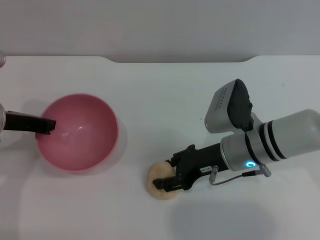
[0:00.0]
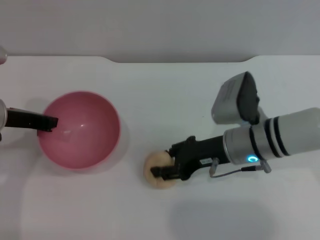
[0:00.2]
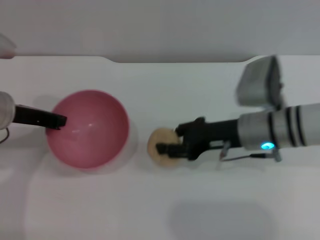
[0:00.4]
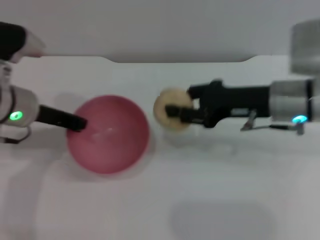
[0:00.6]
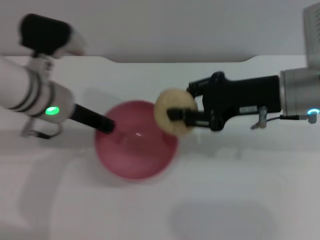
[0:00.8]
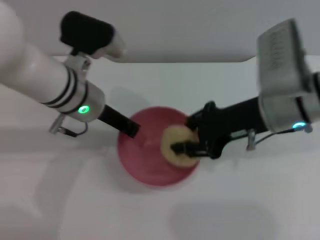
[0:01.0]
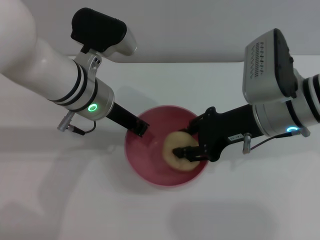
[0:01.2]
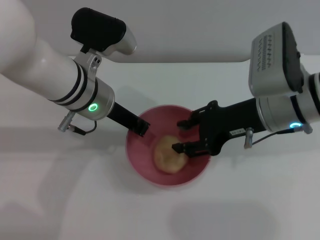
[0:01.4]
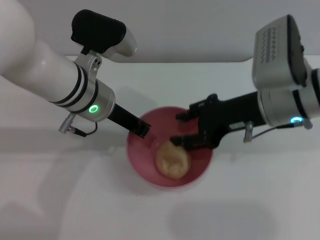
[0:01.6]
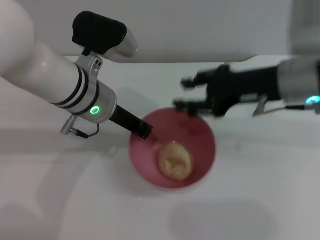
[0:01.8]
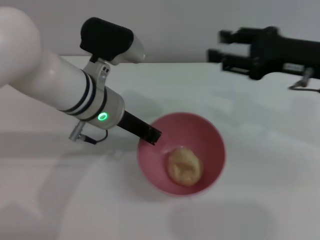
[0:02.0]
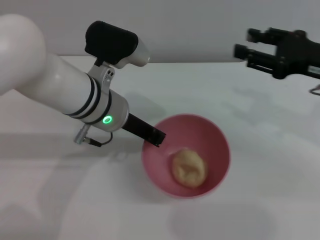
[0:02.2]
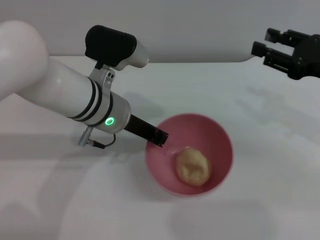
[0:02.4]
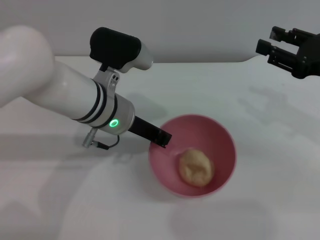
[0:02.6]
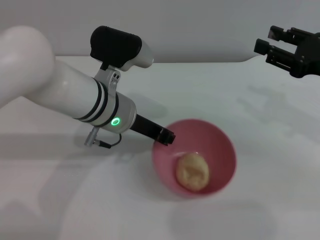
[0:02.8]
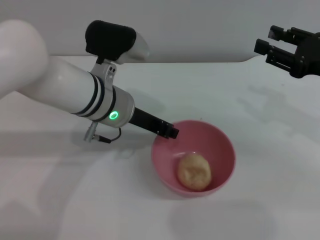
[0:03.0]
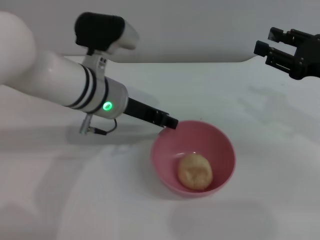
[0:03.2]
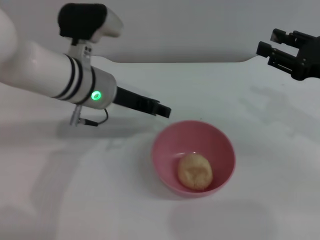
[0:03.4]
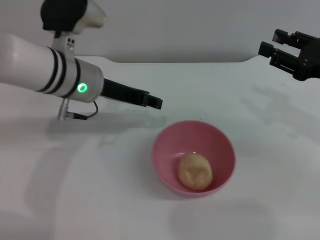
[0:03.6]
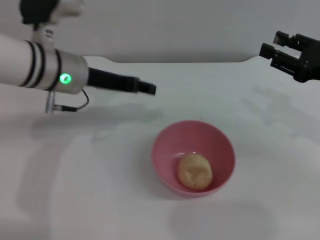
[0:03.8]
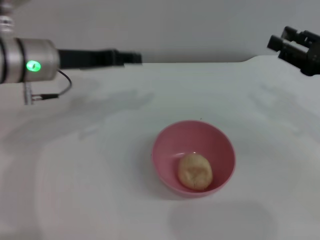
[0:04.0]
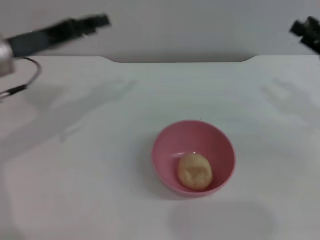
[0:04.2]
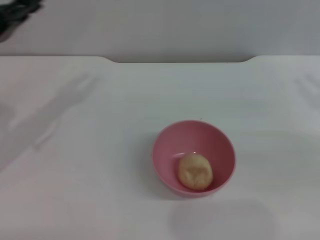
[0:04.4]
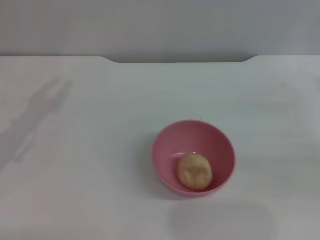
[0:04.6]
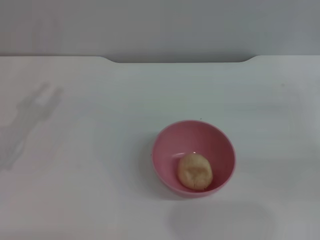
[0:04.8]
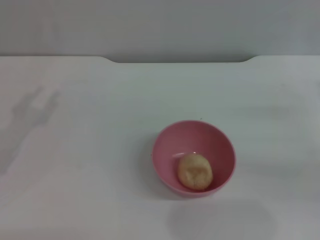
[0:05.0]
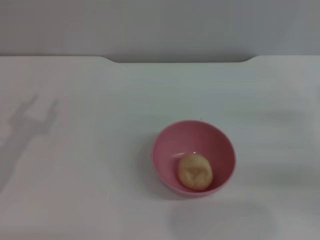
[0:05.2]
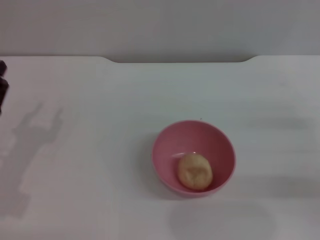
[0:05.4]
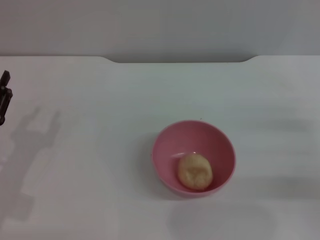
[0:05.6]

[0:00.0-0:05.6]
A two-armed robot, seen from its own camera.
Task of the whole recording: put the egg yolk pastry into the pink bowl and pour it out repeatedly.
Step, 0:00.6 to 0:01.4: Place the egg yolk pastry into the bowl.
Step, 0:01.6 to 0:03.2: Place the bowl on the table.
0:00.0 to 0:01.4: The right gripper travels upward by roughly 10 cm, and closes its fingers. The left gripper shifts about 15 cm to the right.
0:01.4 to 0:02.8: The right gripper is displaced to the right by some 15 cm.
0:02.8 to 0:04.2: The left gripper heads to the left, covering roughly 15 cm, and opens.
0:04.2 to 0:05.6: The left gripper shifts some 20 cm backward and downward. The right gripper travels downward and backward by about 10 cm.

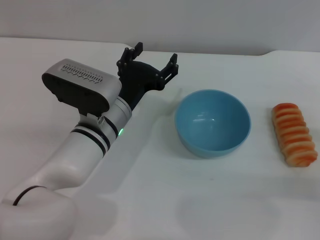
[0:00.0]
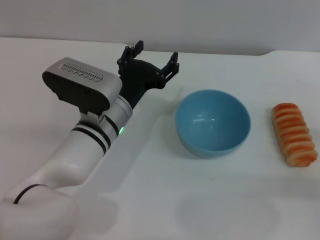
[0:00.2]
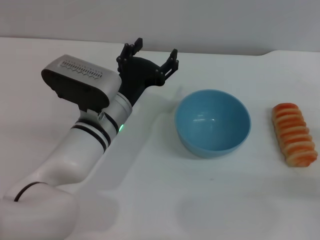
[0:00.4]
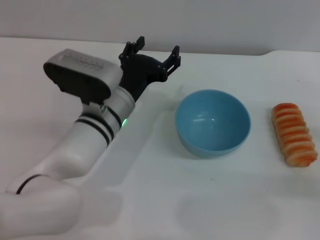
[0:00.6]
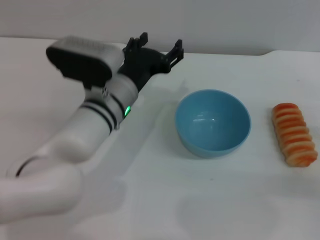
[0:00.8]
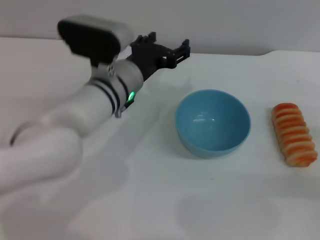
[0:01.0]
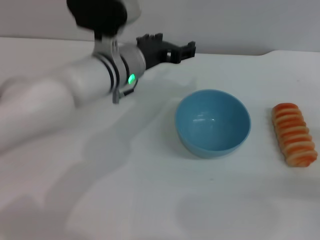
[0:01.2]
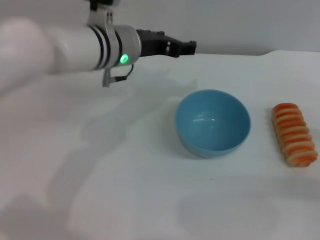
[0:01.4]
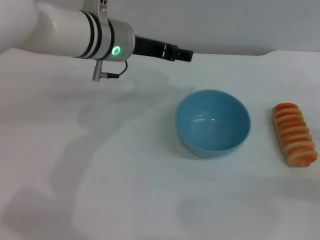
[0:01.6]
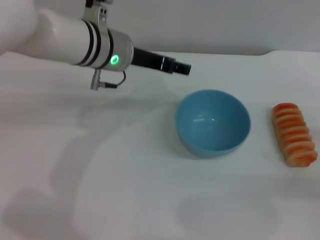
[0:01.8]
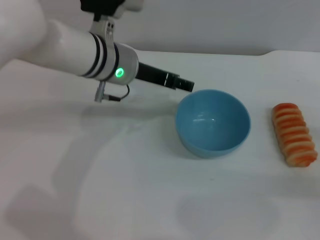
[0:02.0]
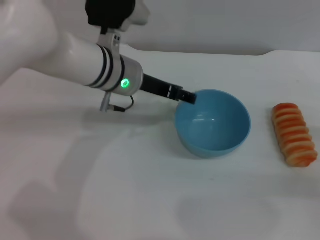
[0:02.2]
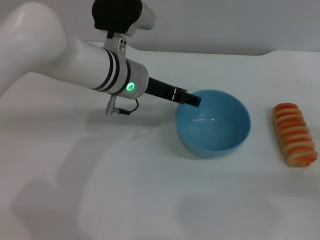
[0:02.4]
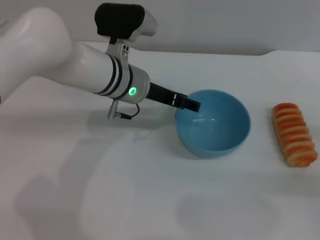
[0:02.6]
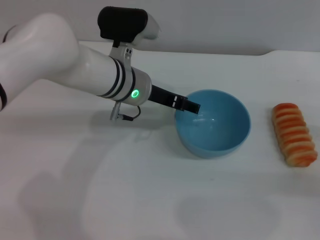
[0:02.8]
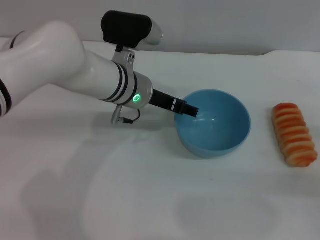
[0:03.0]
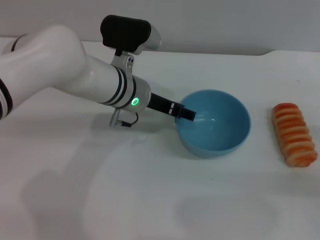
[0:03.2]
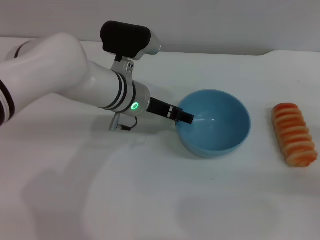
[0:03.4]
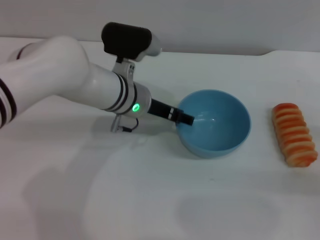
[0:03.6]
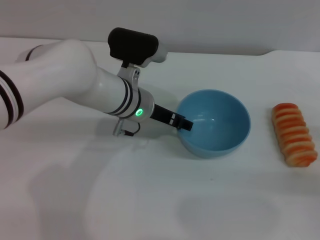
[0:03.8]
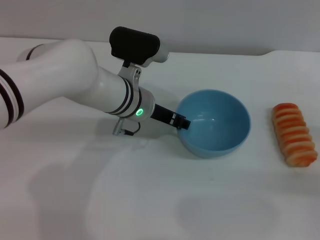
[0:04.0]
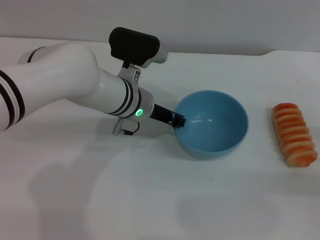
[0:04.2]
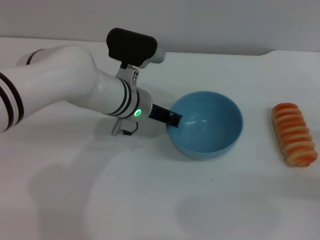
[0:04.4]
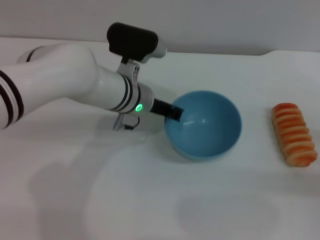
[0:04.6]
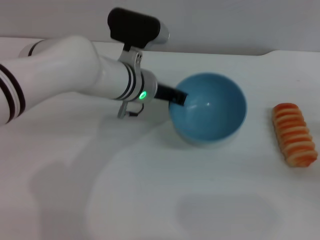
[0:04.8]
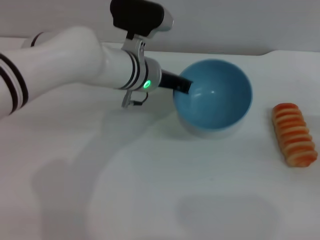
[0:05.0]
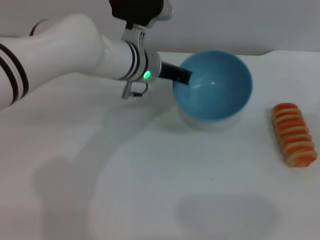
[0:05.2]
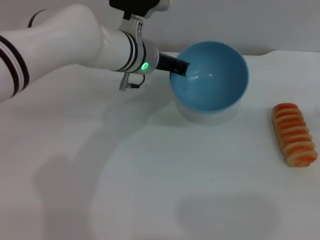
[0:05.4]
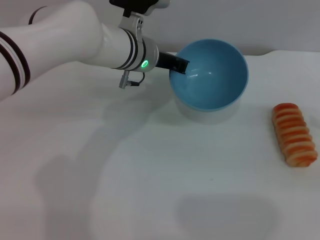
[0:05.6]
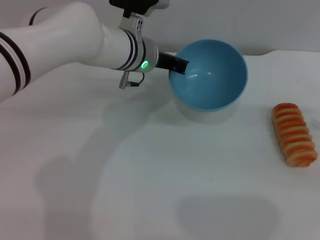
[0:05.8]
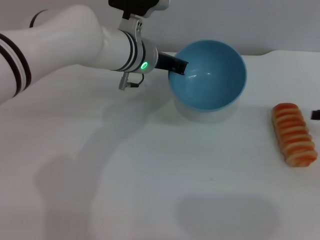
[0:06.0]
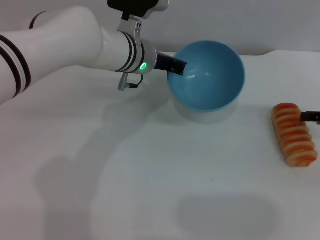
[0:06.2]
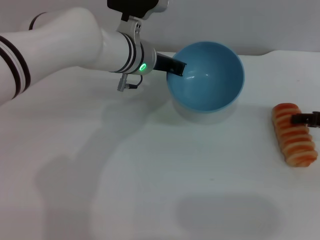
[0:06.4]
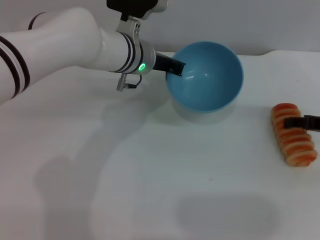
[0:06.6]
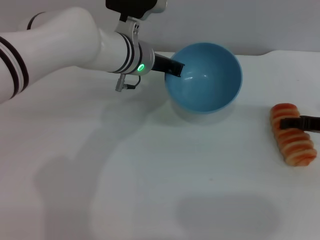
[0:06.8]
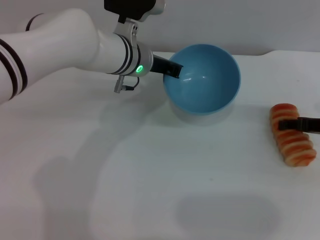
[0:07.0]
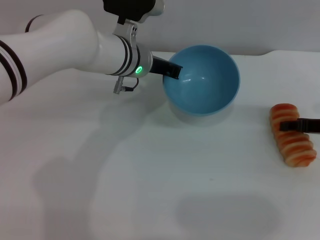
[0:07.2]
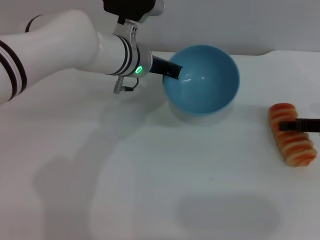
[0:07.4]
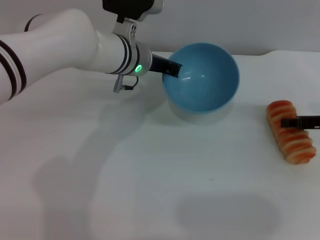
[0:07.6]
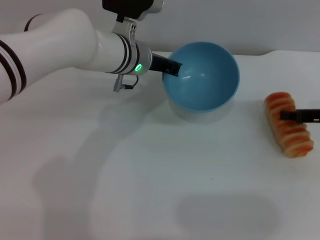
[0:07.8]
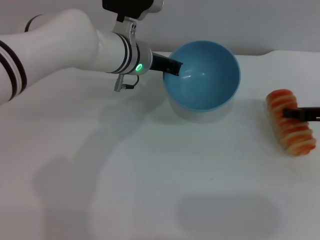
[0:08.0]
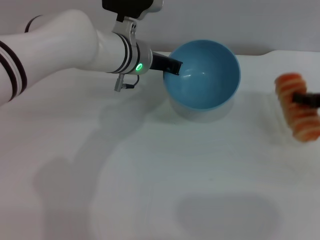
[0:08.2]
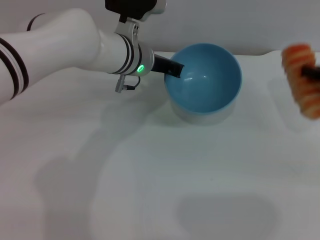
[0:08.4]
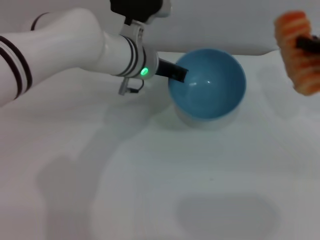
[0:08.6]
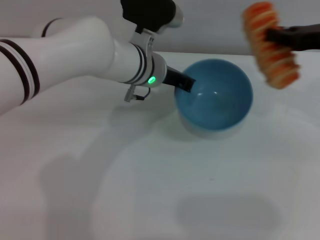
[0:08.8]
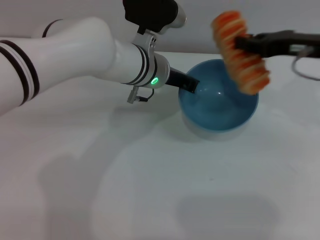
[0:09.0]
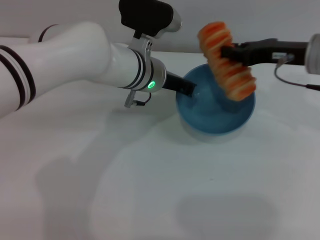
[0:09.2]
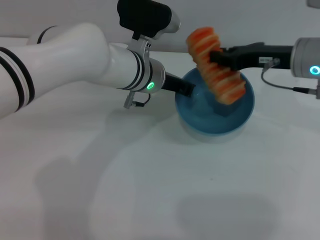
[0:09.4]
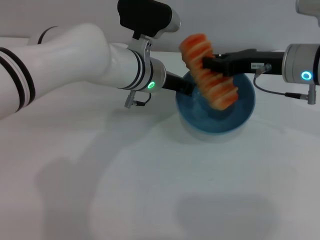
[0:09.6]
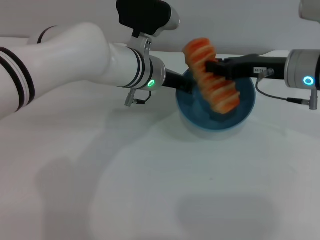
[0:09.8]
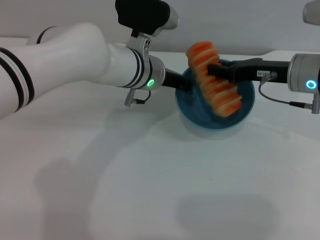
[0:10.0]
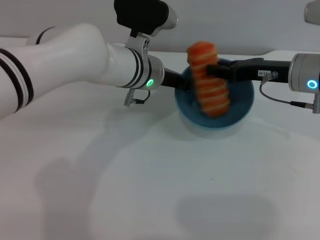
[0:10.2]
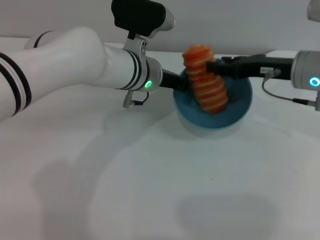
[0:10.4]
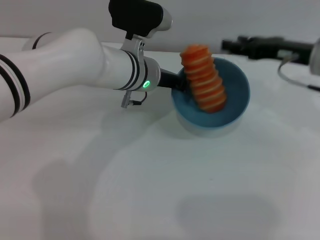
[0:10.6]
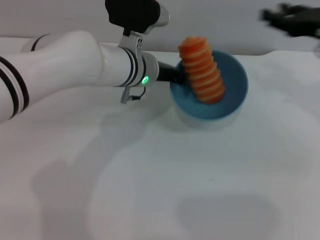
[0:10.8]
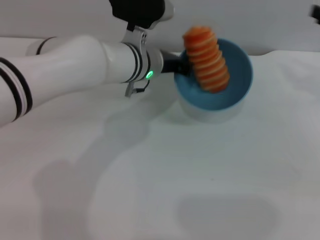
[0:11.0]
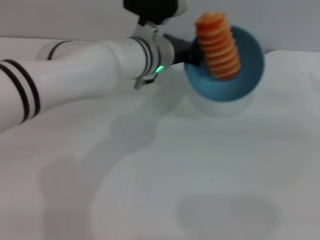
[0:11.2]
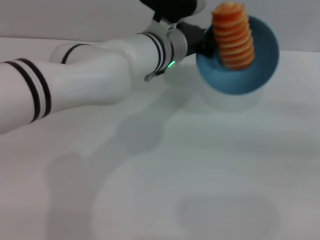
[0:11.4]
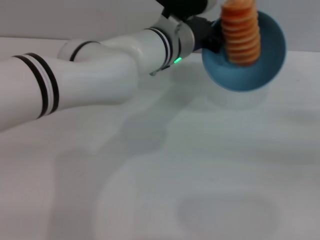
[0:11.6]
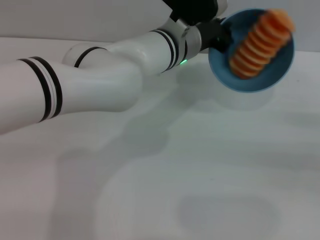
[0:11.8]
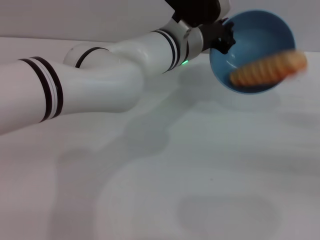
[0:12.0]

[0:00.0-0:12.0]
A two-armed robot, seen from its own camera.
Task of the whole recording: put the bread into the blue bowl and pour it out repeatedly.
Step, 0:00.0 to 0:05.6: Pick up the bowl with the left gripper.
Step, 0:05.8 to 0:08.4: Pick up the bread with the right gripper.
Step, 0:08.6 to 0:10.6: Place the bread into the bowl.
0:00.0 to 0:01.6: The left gripper goes roughly 15 cm upward and forward.
0:01.6 to 0:03.0: The left gripper goes roughly 5 cm downward.
0:03.0 to 0:04.4: The left gripper closes its fingers.
0:04.4 to 0:06.0: The right gripper heads forward and upward, covering roughly 10 cm. The left gripper ends up about 5 cm from where it was, and closes.
0:06.0 to 0:07.6: The right gripper shifts by approximately 5 cm.
0:07.6 to 0:09.0: The right gripper moves upward and to the left, about 10 cm, and closes.
0:09.0 to 0:10.4: The right gripper changes place by approximately 5 cm, and opens its fingers.
0:10.4 to 0:12.0: The left gripper heads to the right, covering about 5 cm. The right gripper goes approximately 20 cm to the right and backward, and opens.

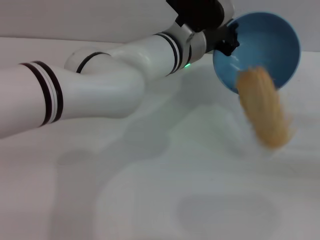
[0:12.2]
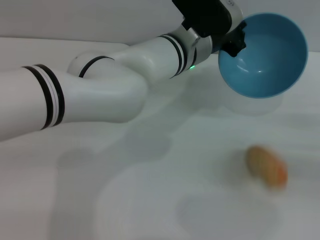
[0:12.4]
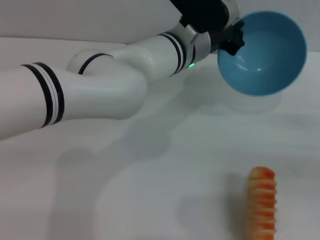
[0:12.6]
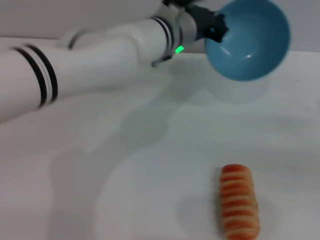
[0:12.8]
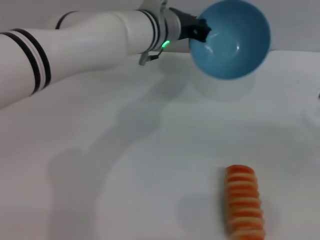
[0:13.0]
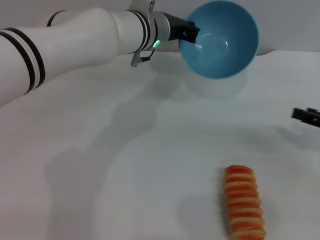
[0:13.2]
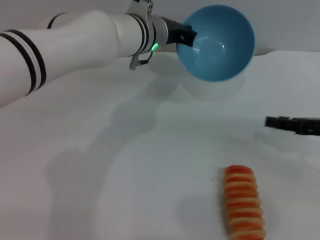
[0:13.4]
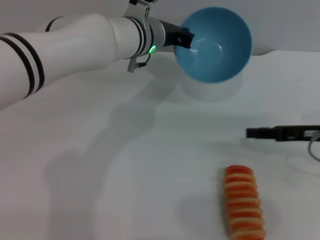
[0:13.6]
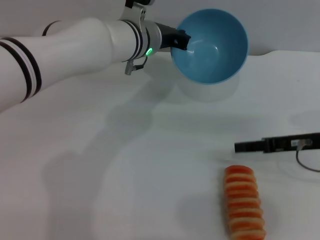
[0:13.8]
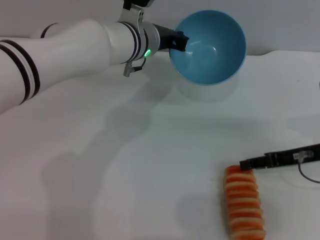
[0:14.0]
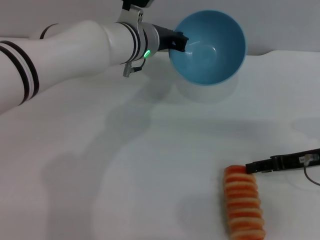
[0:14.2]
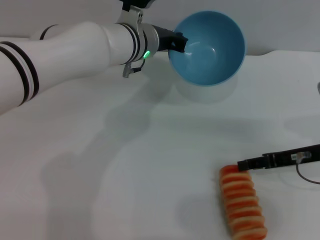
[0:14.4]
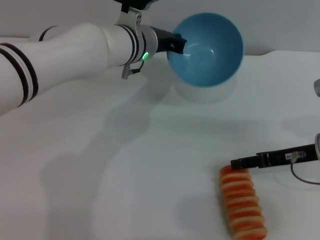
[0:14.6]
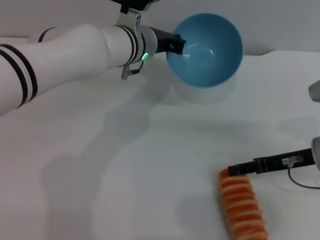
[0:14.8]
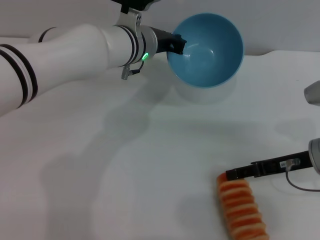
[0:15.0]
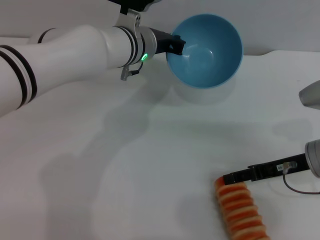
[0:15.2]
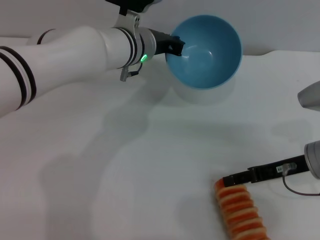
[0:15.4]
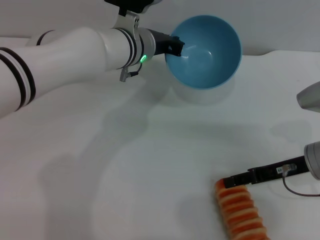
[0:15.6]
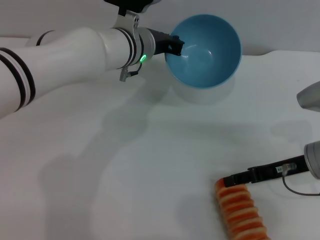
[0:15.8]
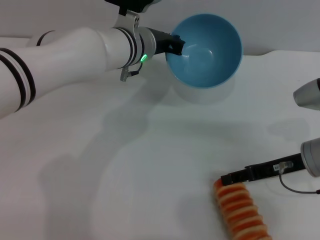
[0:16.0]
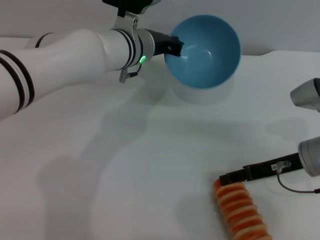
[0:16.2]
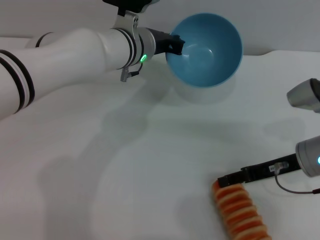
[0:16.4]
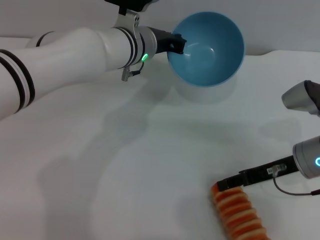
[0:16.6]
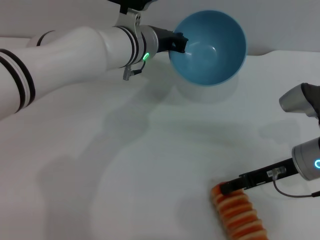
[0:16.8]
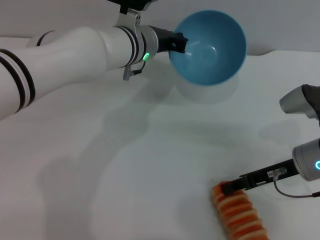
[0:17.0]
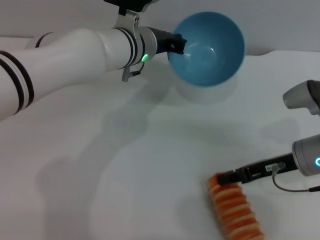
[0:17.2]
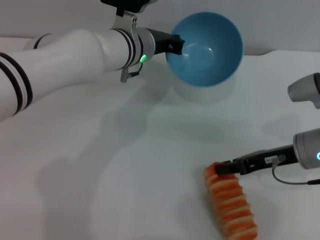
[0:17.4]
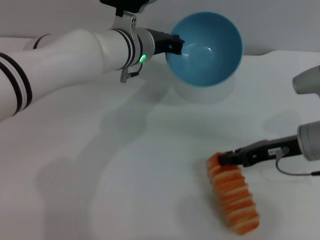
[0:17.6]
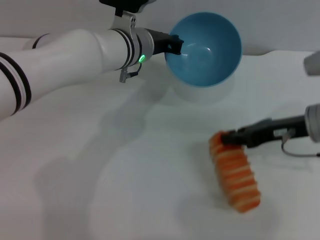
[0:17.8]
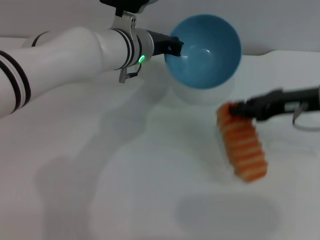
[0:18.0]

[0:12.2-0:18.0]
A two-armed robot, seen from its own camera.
Task of the whole recording: put the bread into the blue bowl and pour it out repeatedly.
0:12.2 to 0:13.6: The right gripper is displaced to the left and forward by roughly 10 cm; the left gripper heads to the left, covering roughly 5 cm.
0:13.6 to 0:15.0: There are only small adjustments of the grippers.
0:15.0 to 0:16.6: There are only small adjustments of the grippers.
0:16.6 to 0:18.0: The right gripper is displaced upward by about 10 cm, and closes up.
